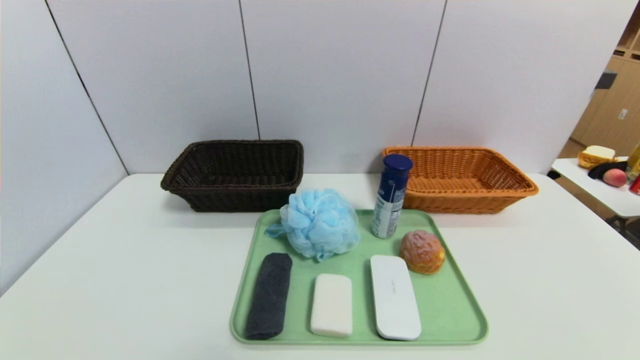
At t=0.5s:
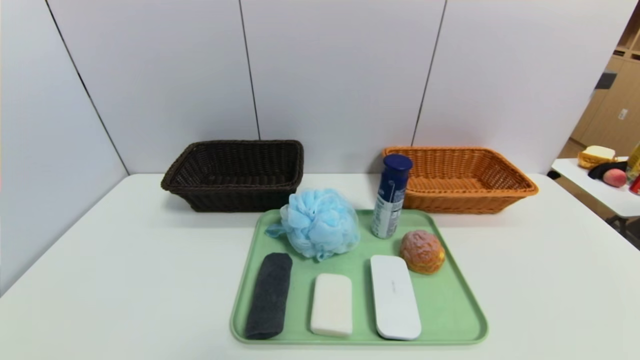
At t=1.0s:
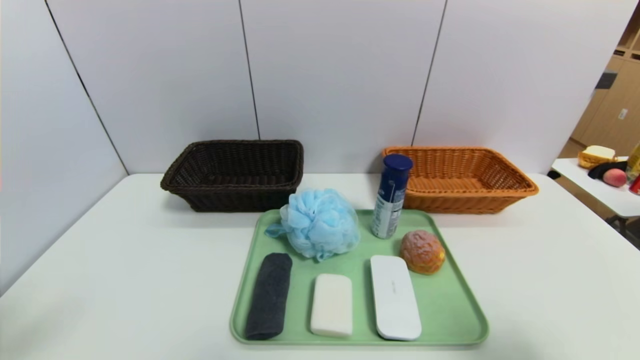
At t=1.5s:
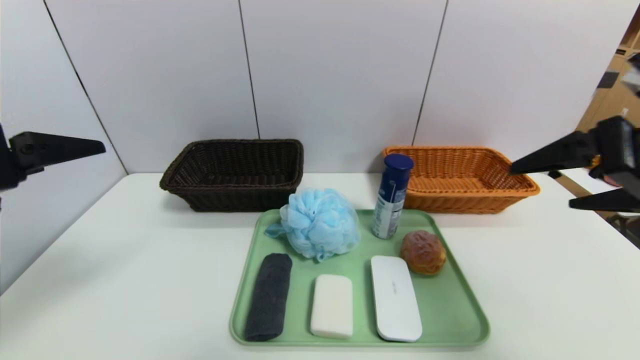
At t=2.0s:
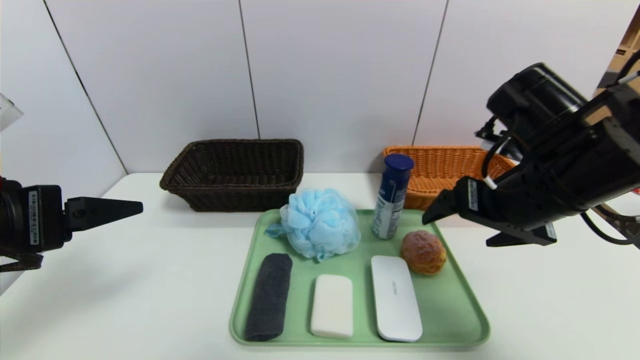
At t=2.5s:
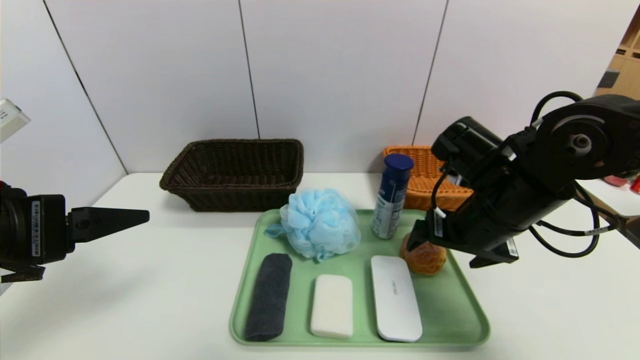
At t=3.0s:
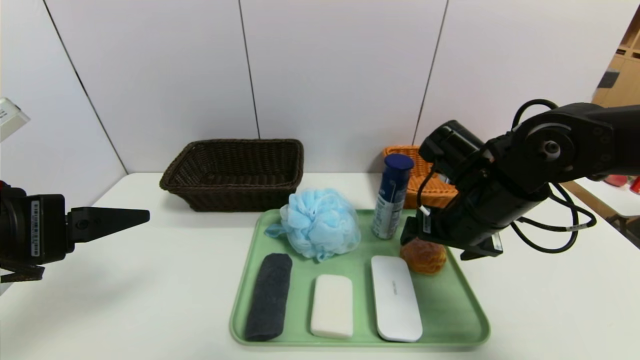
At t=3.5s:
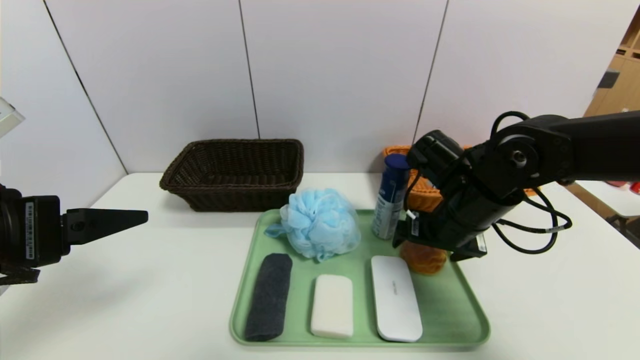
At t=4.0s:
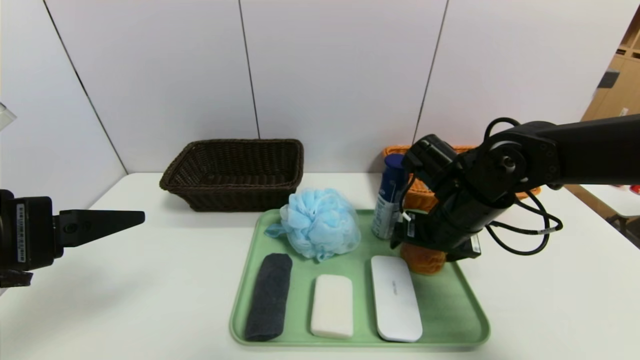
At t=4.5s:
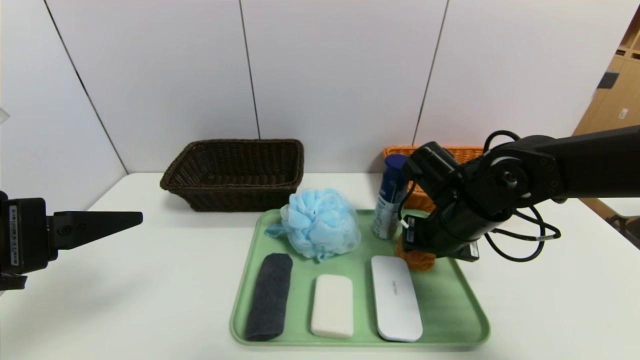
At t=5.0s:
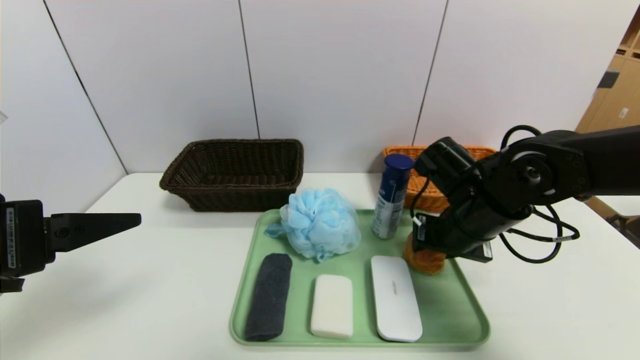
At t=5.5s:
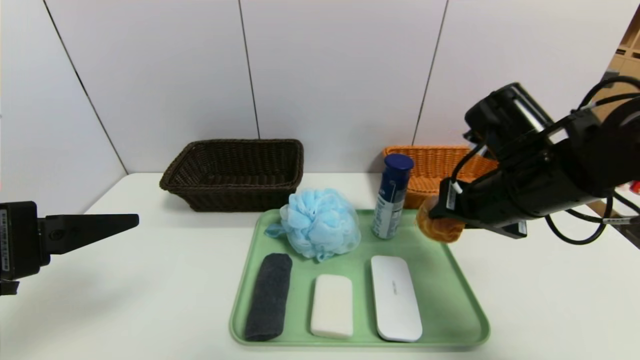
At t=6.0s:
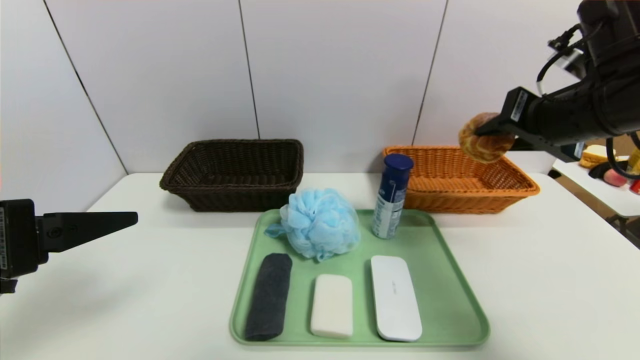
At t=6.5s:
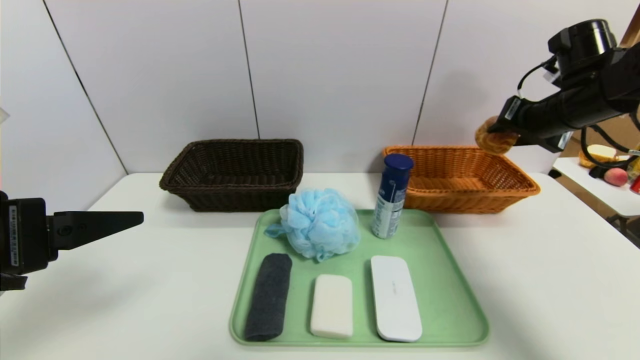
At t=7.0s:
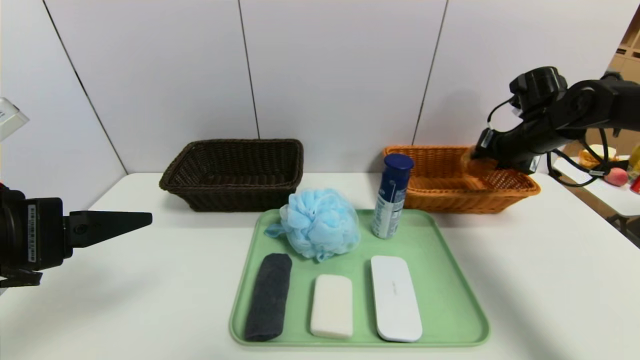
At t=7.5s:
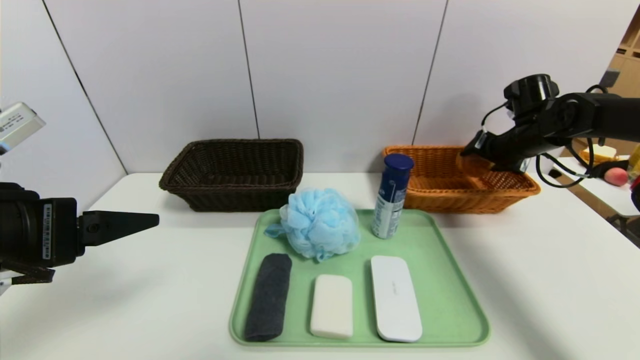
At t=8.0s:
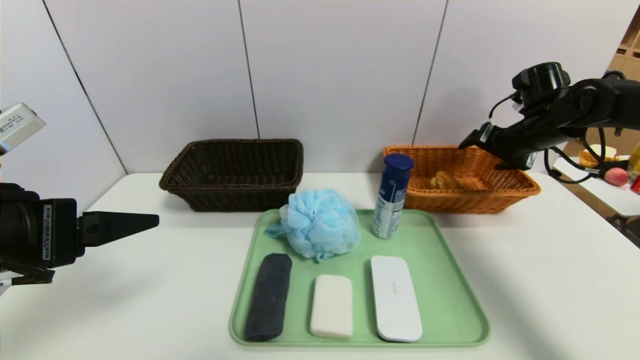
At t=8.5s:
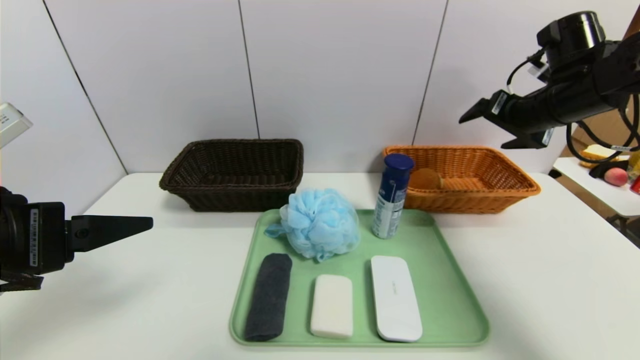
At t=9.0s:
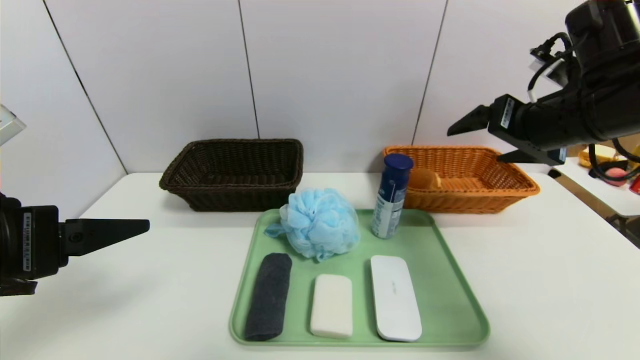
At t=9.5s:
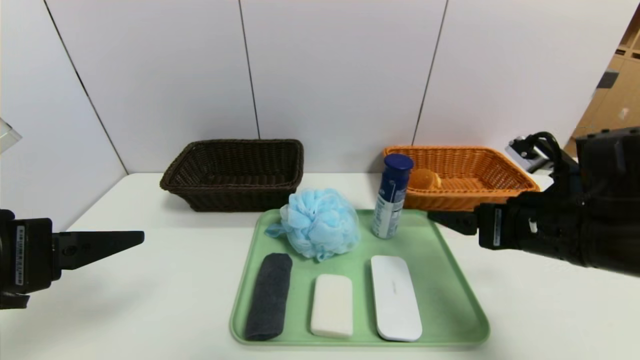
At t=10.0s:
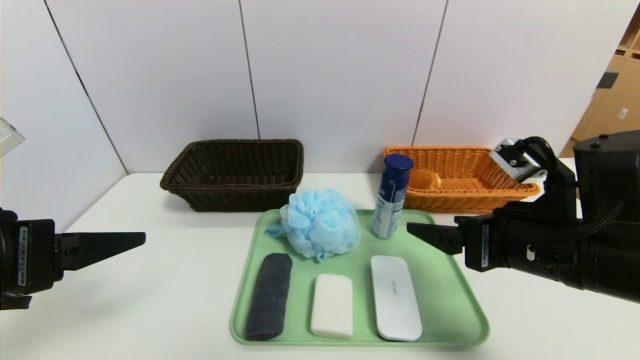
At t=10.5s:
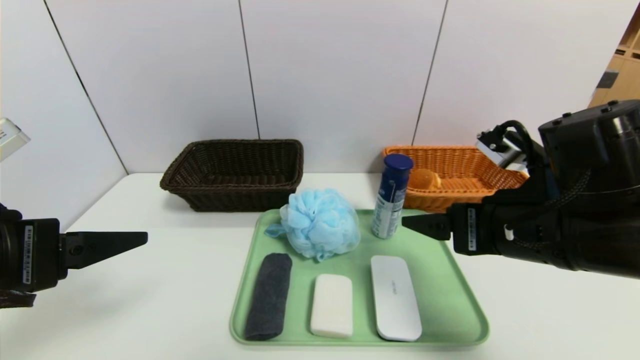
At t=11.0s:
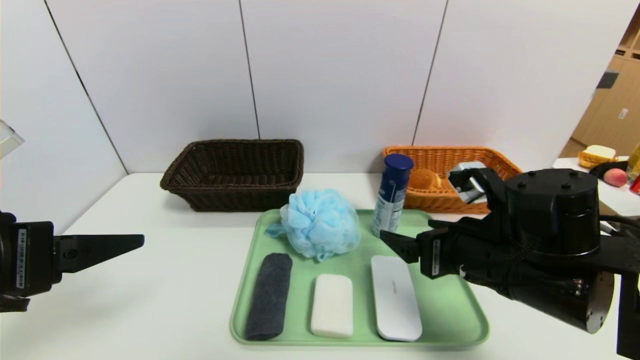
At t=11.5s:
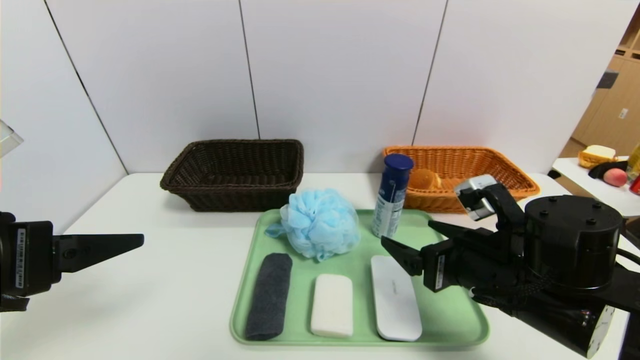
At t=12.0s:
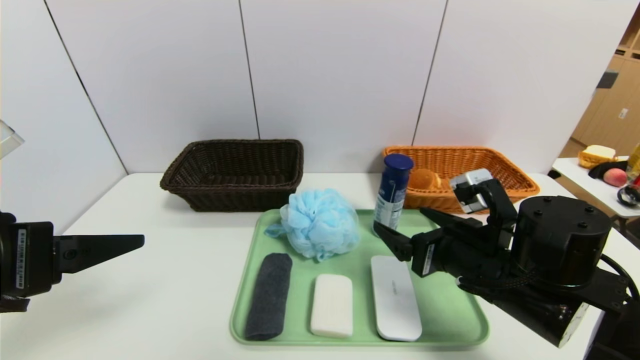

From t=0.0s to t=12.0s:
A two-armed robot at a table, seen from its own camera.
Task of the whole recording: place the food in the right basket with the right gripper, and place the non food items in the left basket with the left gripper.
Step, from t=0.0s to t=8.0s: Grasp the round bread and put it in the right basket.
From t=0.0s to t=2.0s: The right gripper moves forward, upward and to the left, about 35 cm. Meanwhile the left gripper heads upward and forward, covering some 25 cm.
From t=2.0s to t=4.0s: The right gripper goes roughly 10 cm downward and forward.
From t=4.0s to t=6.0s: The right gripper travels upward and to the right by approximately 20 cm, and closes.
From t=6.0s to t=8.0s: The right gripper travels forward, downward and to the right by approximately 20 cm, and opens its fingers.
From t=8.0s to t=10.0s: The right gripper travels backward and to the left by roughly 25 cm.
From t=10.0s to t=12.0s: The right gripper heads downward, covering roughly 5 cm.

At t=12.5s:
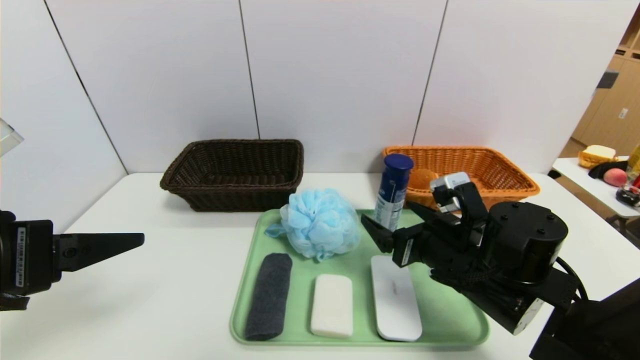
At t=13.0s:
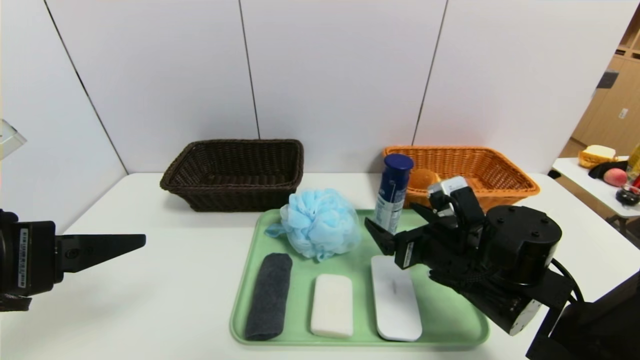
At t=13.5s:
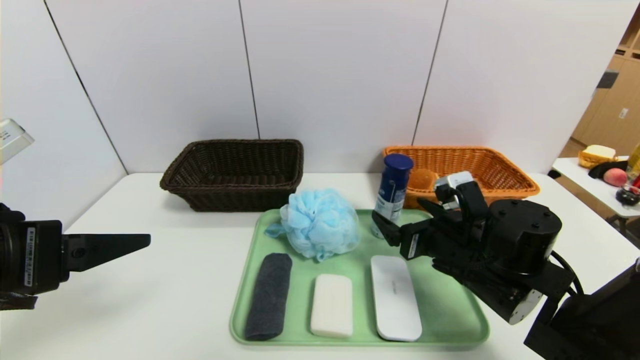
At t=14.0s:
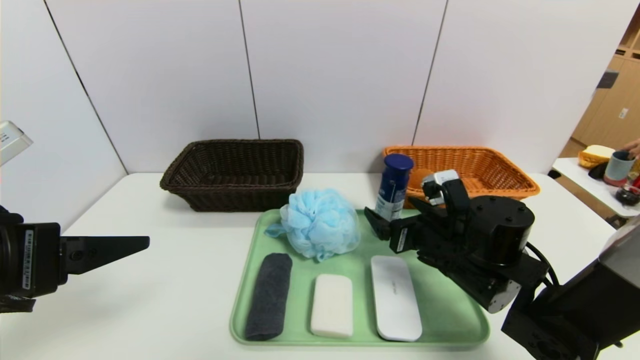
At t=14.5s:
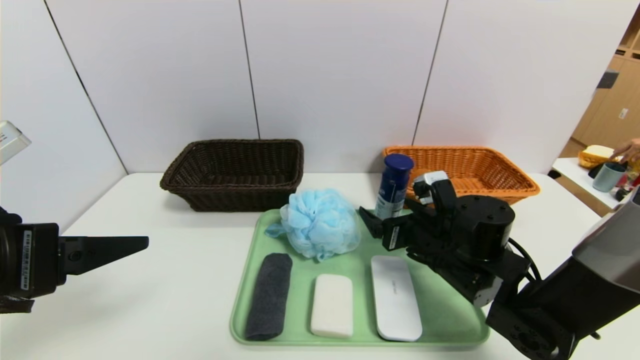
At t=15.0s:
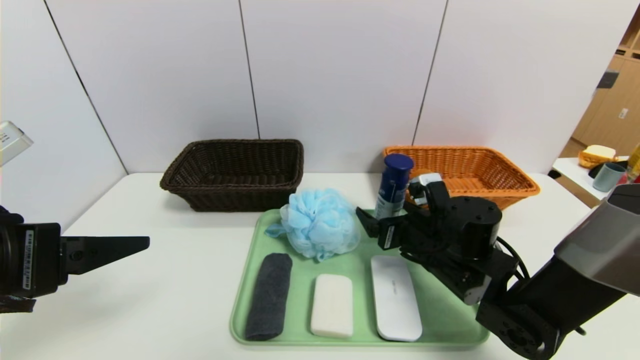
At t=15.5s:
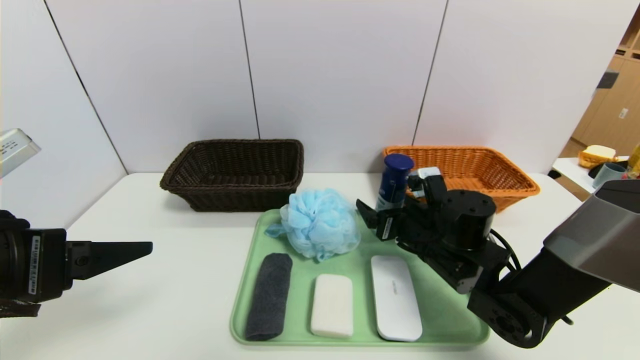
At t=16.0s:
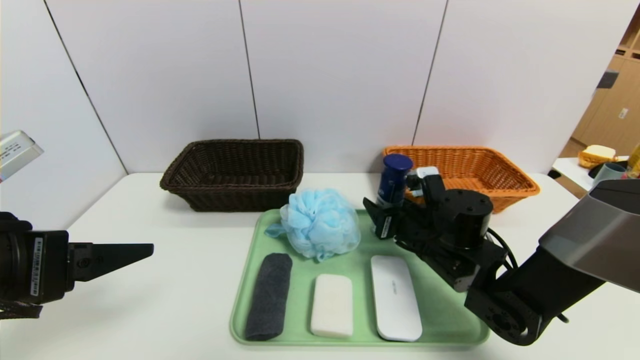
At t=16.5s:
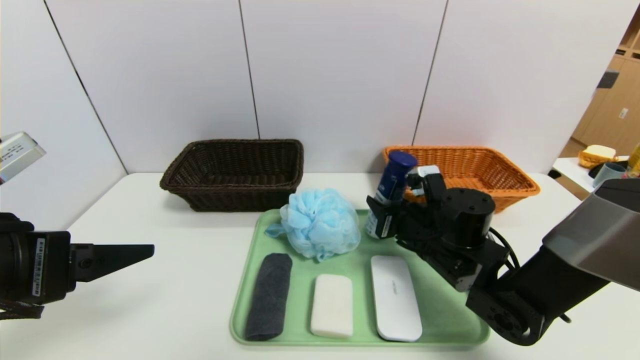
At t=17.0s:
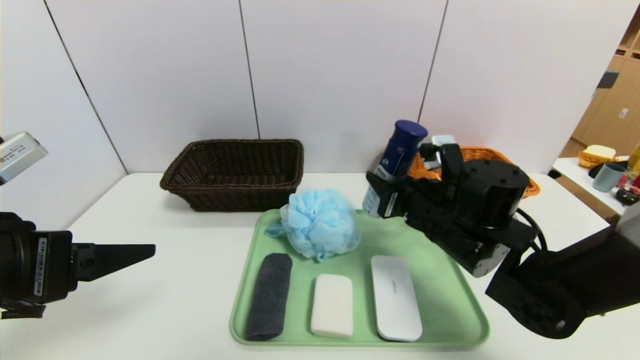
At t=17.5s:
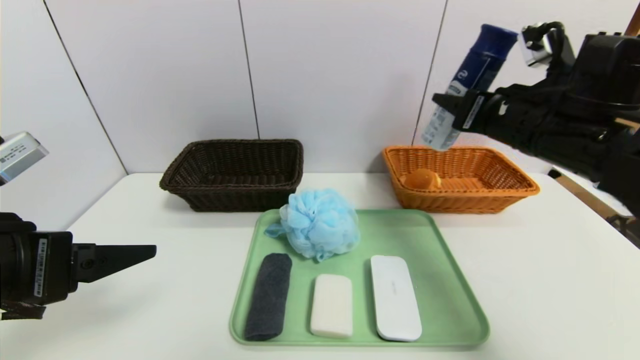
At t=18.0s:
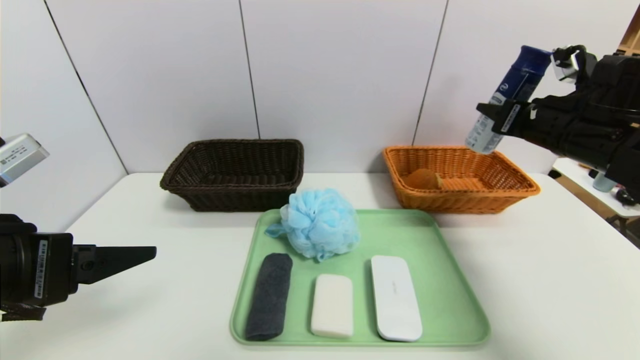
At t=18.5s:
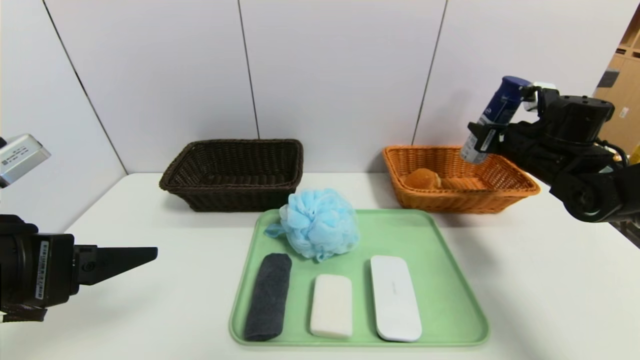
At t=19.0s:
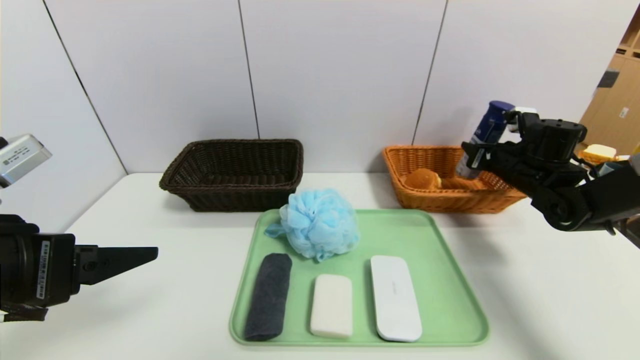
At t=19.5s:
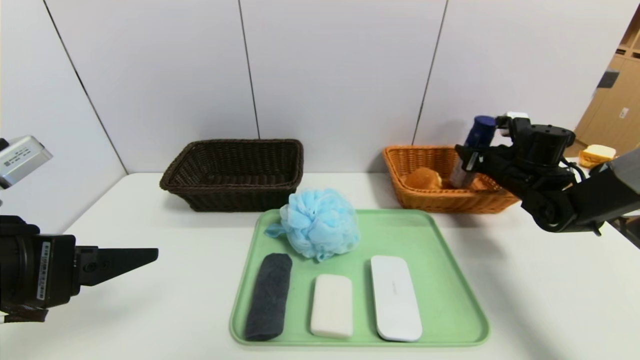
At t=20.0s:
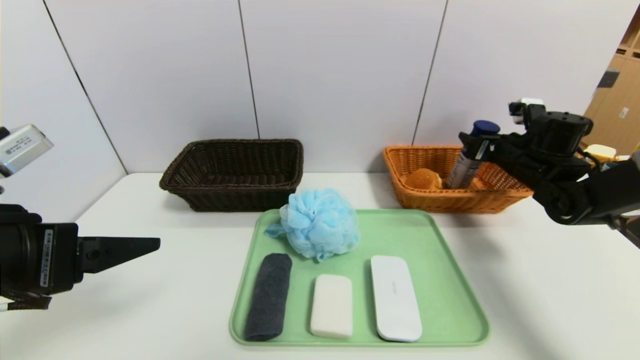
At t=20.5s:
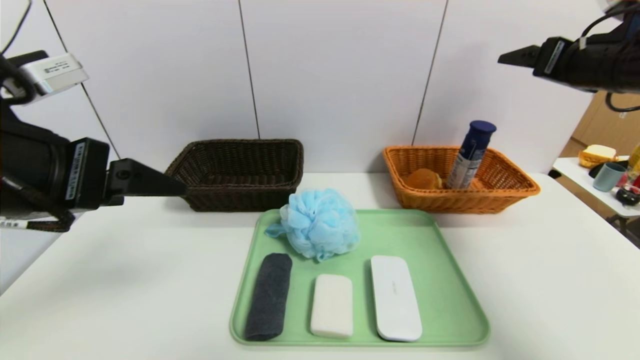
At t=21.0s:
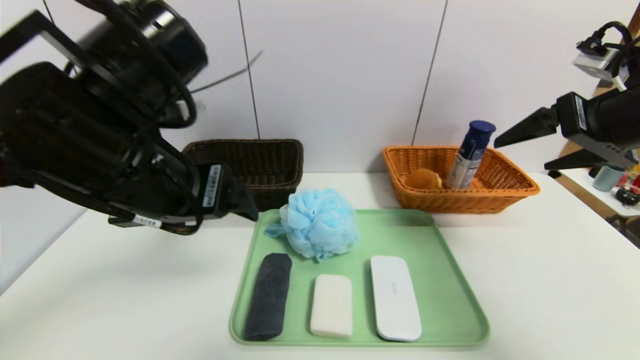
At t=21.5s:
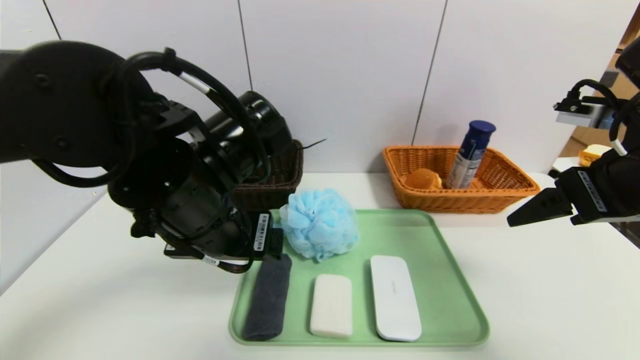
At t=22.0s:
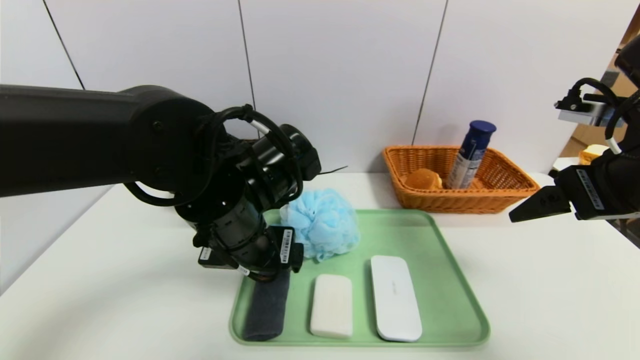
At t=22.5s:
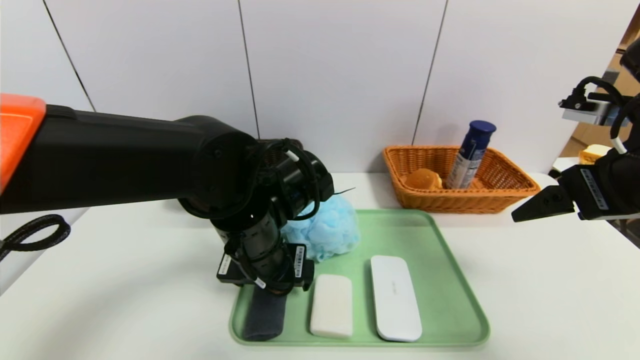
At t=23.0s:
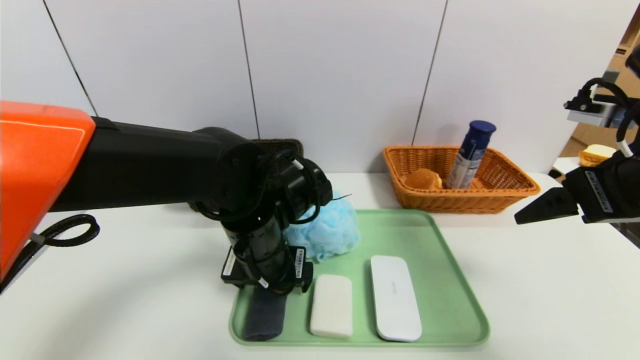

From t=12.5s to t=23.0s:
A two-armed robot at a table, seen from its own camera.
Task of the whole recording: place the food in the right basket with the right gripper, and place the non food items in the left basket with the left gripper.
Step, from t=12.5s to t=21.0s: Grasp the yogurt and put it in the right basket.
From t=12.5s to t=14.5s: The right gripper changes place by roughly 5 cm.
From t=14.5s to t=16.5s: The right gripper closes its fingers.
From t=16.5s to t=19.0s: The right gripper shifts about 20 cm to the right and forward.
From t=19.0s to t=21.0s: The left gripper shifts roughly 15 cm to the right and forward. The right gripper goes some 25 cm upward and backward, and opens up.
From t=21.0s to t=23.0s: The right gripper is displaced backward by roughly 5 cm. Meanwhile the left gripper goes roughly 15 cm downward, to the right and forward.
